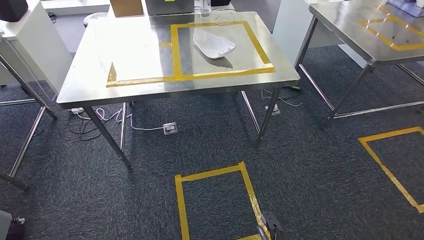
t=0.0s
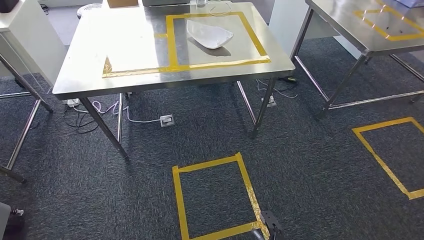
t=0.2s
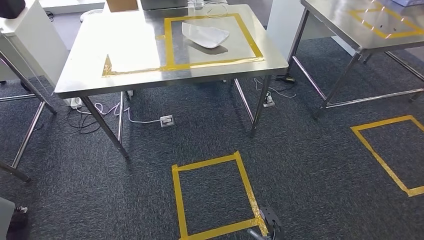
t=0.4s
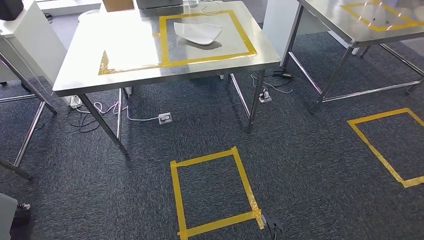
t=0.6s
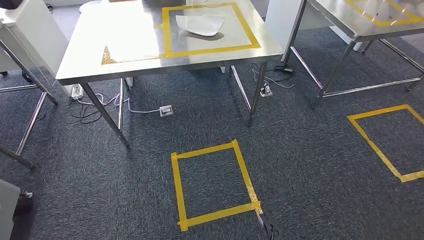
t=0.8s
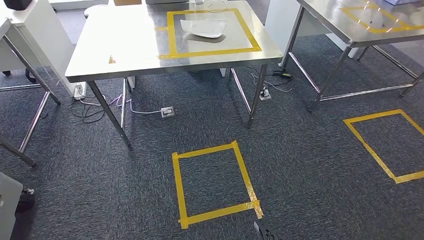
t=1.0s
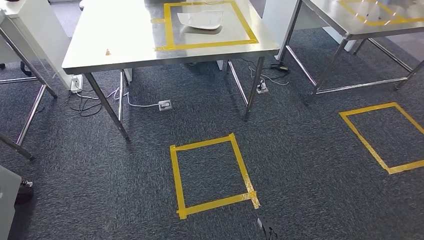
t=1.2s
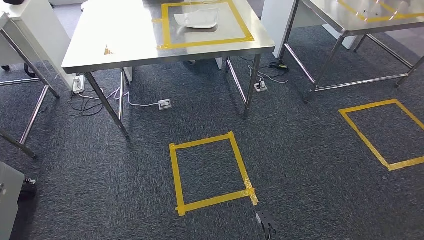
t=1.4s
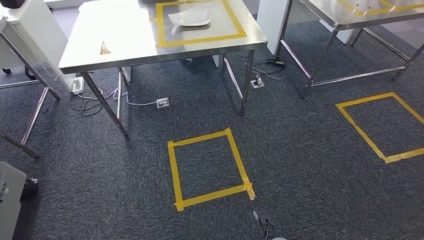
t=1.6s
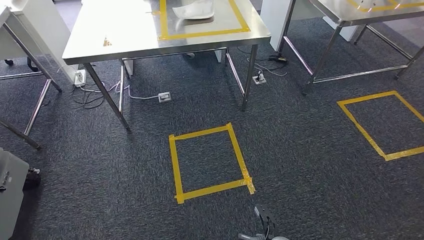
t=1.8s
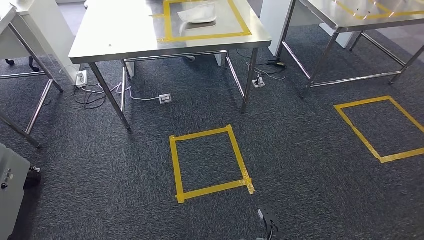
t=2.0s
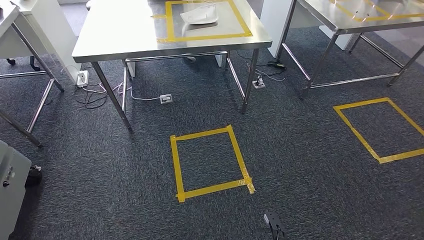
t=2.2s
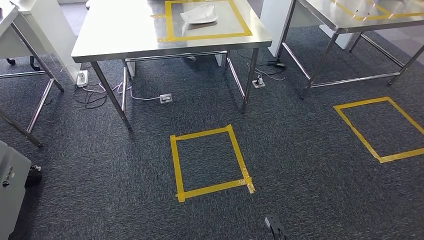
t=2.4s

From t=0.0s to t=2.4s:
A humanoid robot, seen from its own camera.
Step, from t=0.0s to t=2.4s: Move to the initial position at the workbench.
From t=1.2s to t=2.4s: The hands stay close to where they were, moving slightly.
